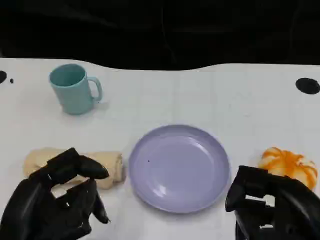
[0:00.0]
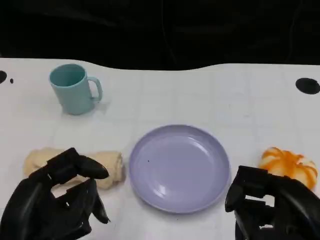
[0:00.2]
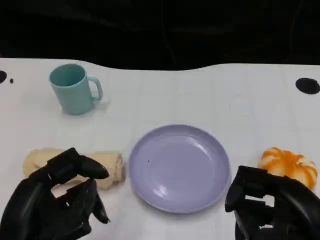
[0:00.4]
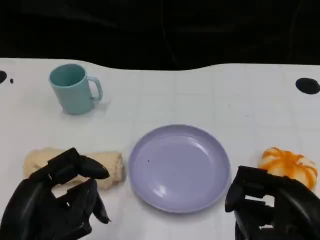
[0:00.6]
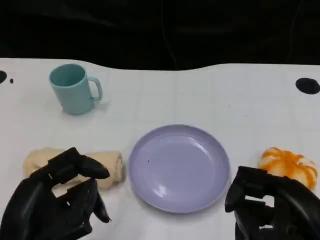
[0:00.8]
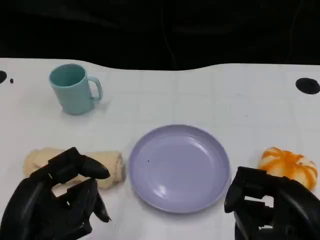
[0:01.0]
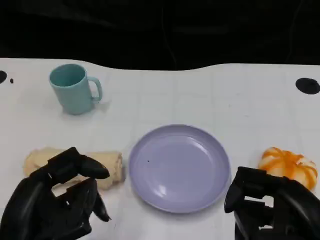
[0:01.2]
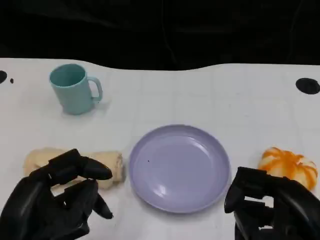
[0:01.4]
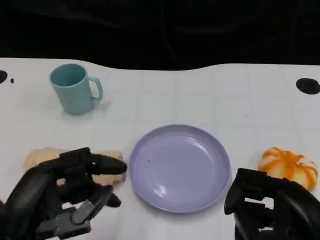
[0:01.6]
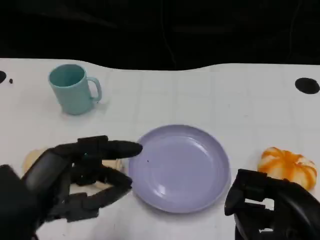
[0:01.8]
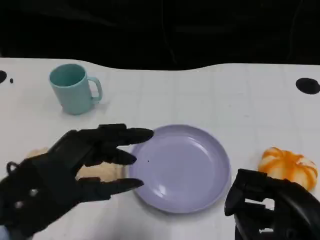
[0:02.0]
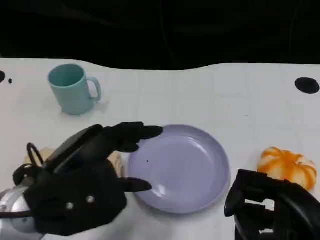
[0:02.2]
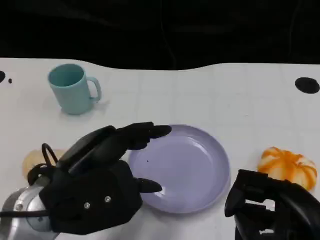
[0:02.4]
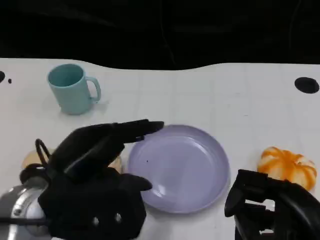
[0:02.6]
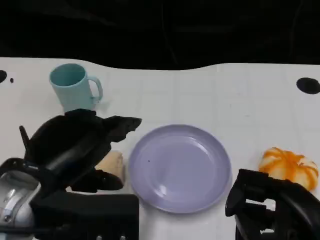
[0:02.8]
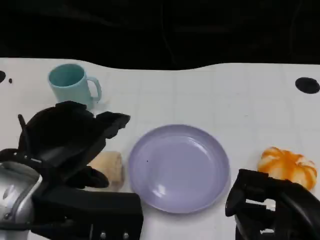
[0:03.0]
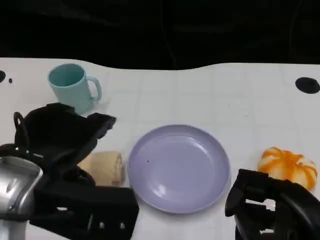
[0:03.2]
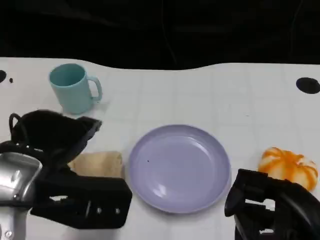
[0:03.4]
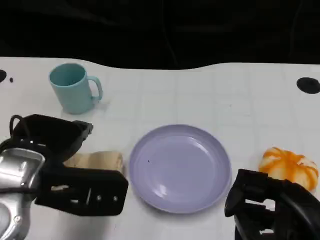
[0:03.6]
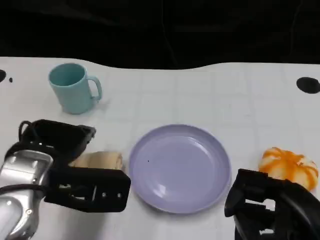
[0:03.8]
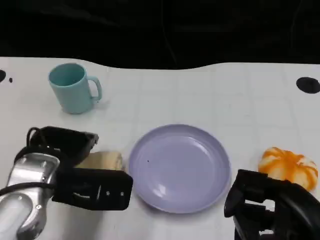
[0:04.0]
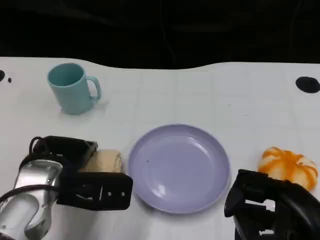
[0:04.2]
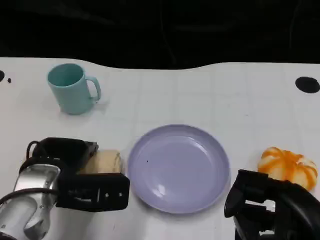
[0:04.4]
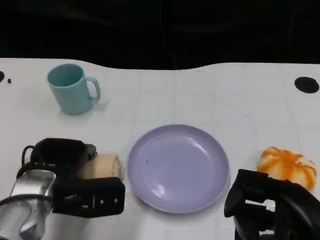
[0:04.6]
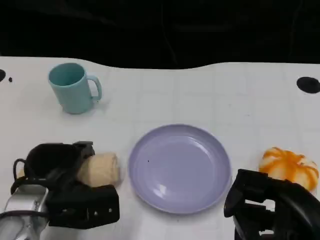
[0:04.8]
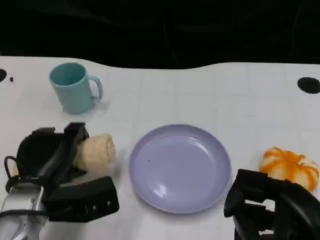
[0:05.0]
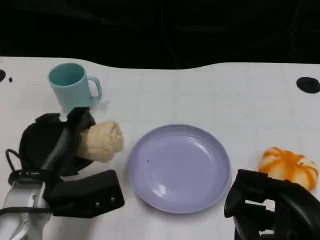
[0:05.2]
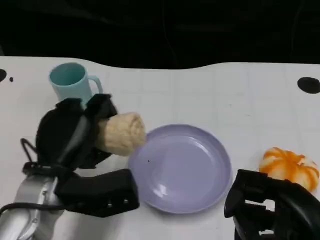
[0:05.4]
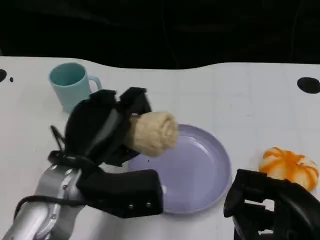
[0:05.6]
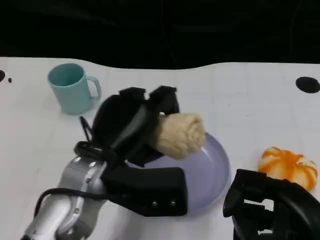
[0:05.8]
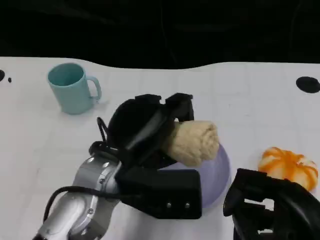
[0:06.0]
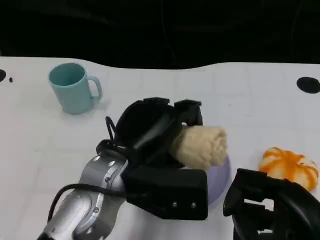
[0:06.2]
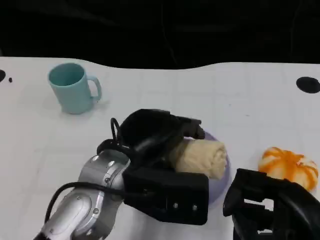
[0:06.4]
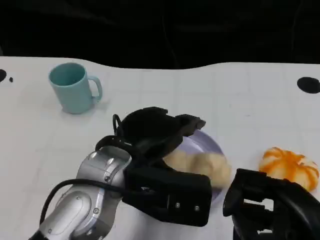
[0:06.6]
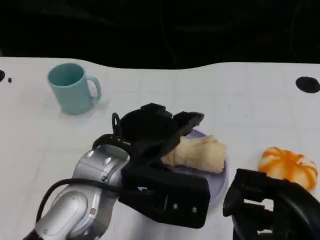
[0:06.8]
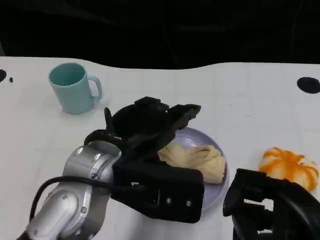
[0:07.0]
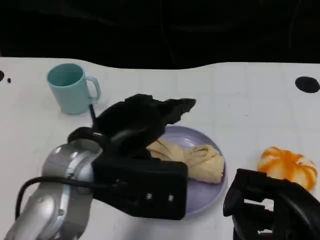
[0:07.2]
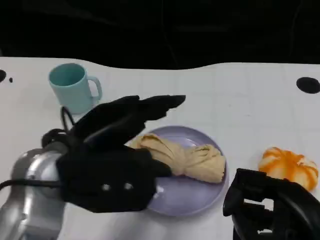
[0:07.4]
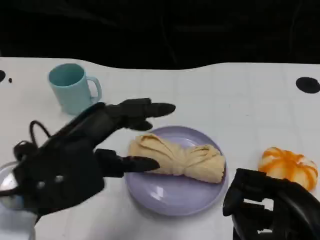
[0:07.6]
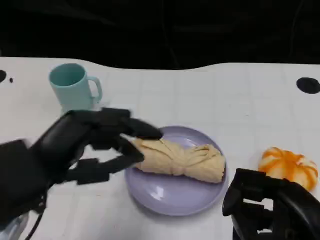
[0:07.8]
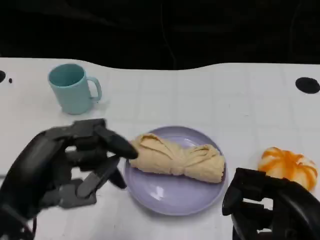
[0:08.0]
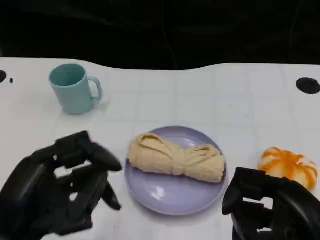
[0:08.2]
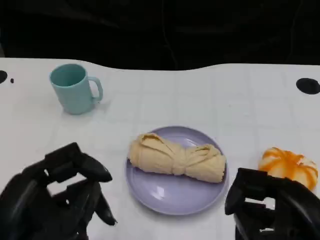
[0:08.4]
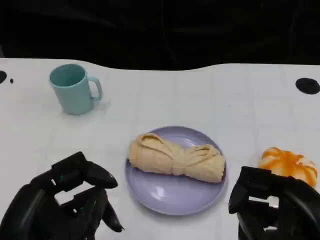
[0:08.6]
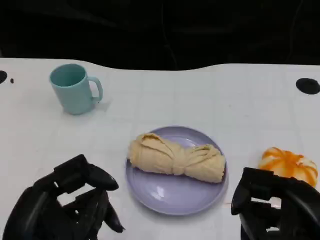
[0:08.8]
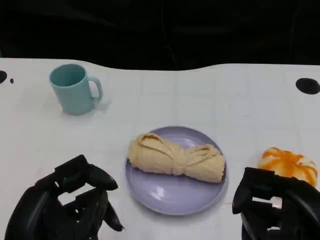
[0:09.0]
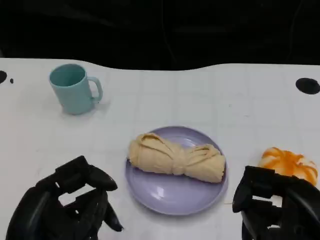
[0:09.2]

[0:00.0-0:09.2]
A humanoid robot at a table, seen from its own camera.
Task of the whole recording: Grasp the towel on the left side of the plate with the left hand and place it into the plate.
0:00.0 to 0:01.6: The hands make only small movements.
0:01.6 to 0:03.0: The left hand travels upward by about 5 cm.
0:03.0 to 0:04.6: The left hand shifts about 15 cm downward and forward.
0:04.6 to 0:06.2: The left hand shifts some 15 cm to the right and upward.
0:06.2 to 0:07.6: The left hand is displaced to the left by roughly 10 cm.
0:07.6 to 0:09.2: The left hand goes some 10 cm backward and downward.

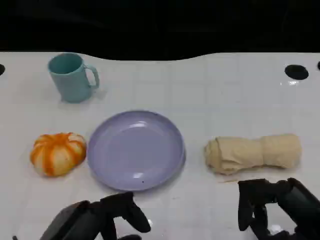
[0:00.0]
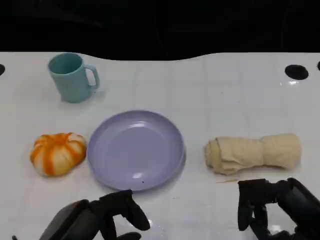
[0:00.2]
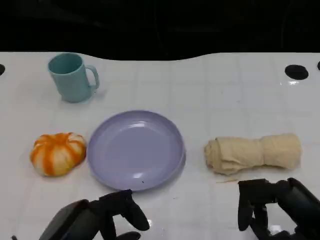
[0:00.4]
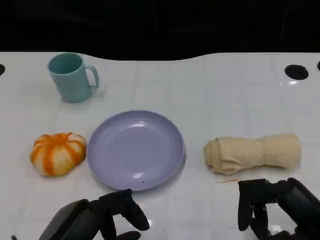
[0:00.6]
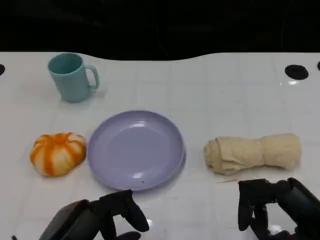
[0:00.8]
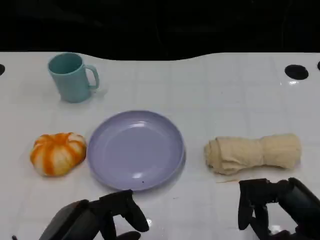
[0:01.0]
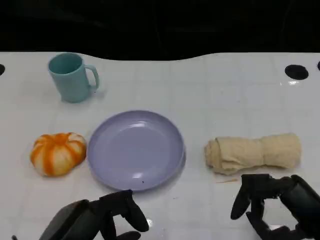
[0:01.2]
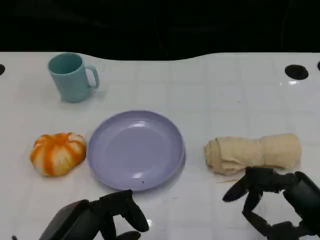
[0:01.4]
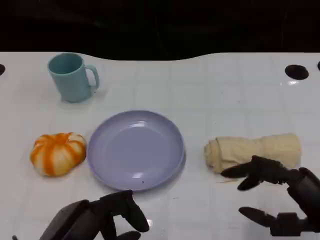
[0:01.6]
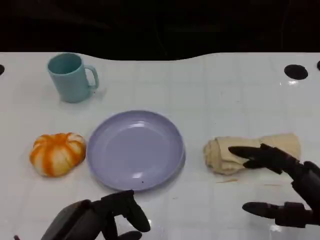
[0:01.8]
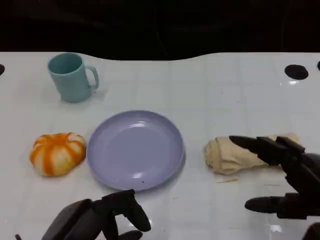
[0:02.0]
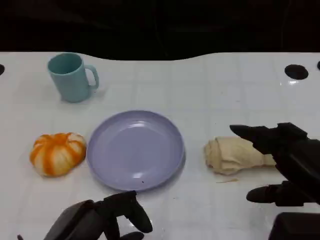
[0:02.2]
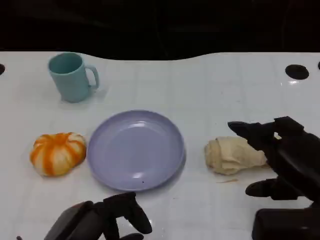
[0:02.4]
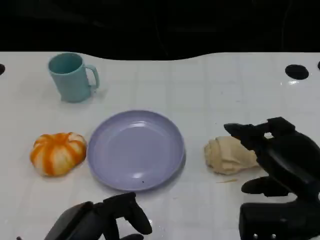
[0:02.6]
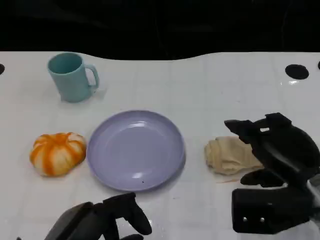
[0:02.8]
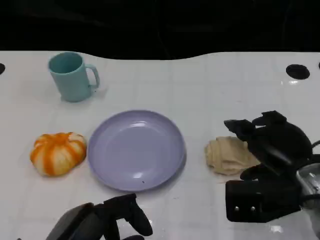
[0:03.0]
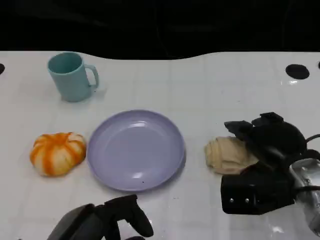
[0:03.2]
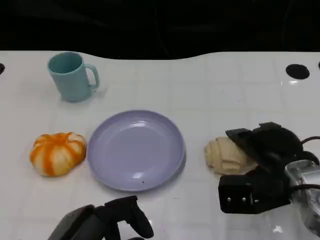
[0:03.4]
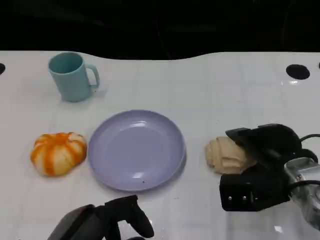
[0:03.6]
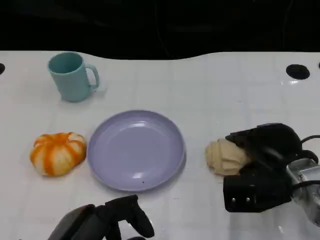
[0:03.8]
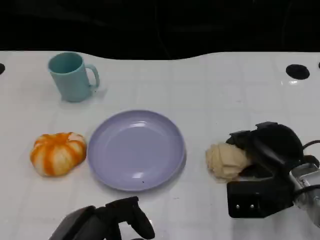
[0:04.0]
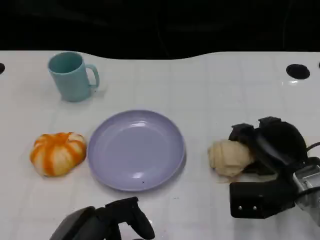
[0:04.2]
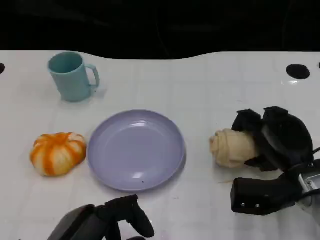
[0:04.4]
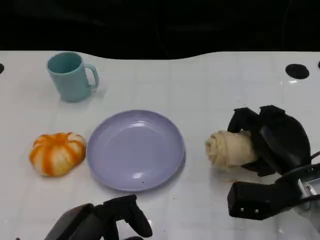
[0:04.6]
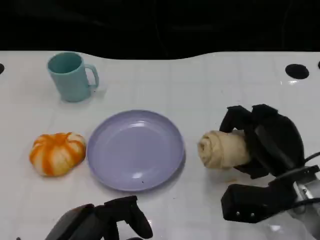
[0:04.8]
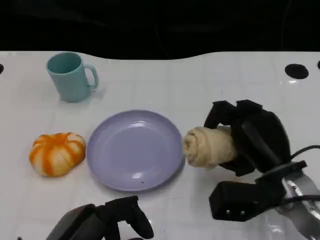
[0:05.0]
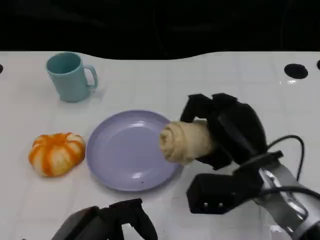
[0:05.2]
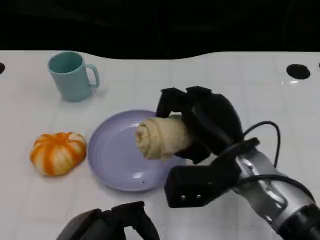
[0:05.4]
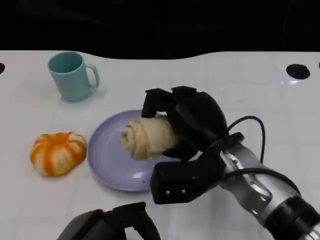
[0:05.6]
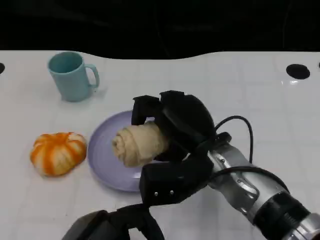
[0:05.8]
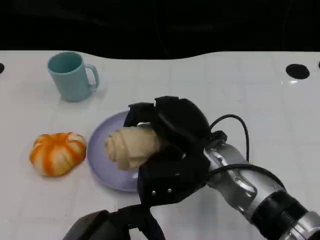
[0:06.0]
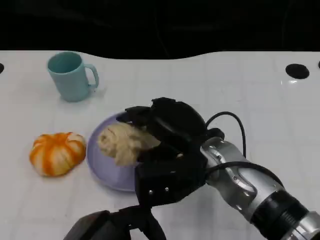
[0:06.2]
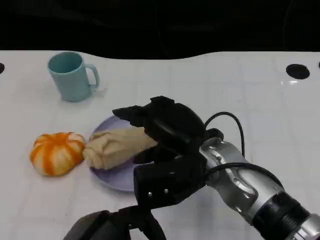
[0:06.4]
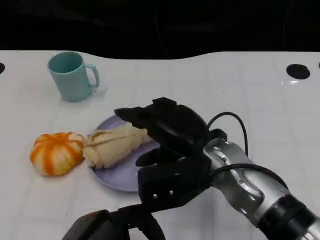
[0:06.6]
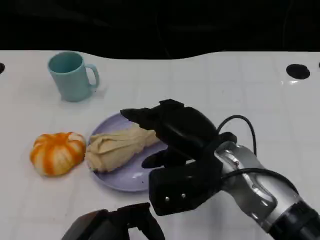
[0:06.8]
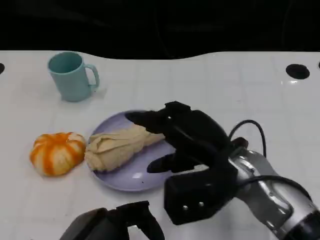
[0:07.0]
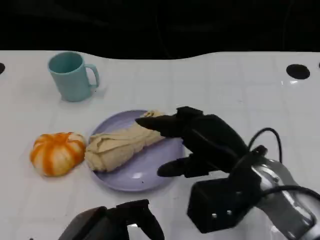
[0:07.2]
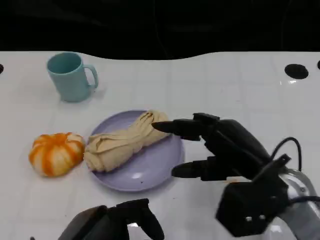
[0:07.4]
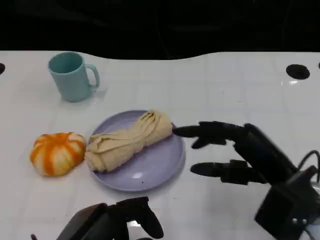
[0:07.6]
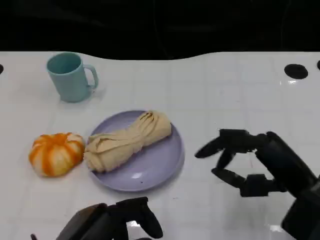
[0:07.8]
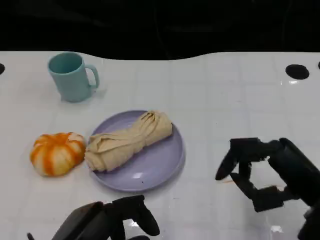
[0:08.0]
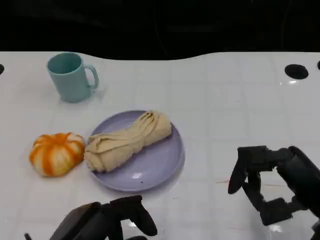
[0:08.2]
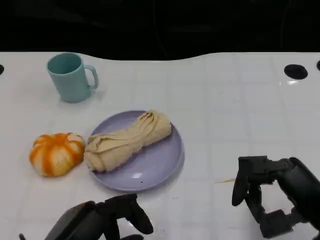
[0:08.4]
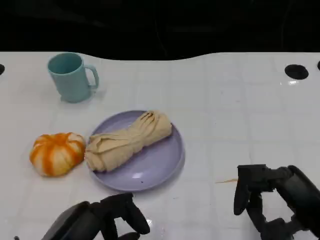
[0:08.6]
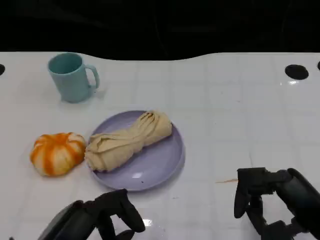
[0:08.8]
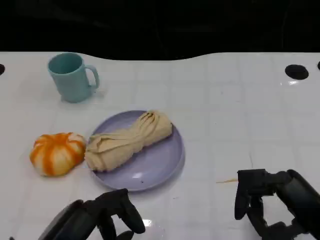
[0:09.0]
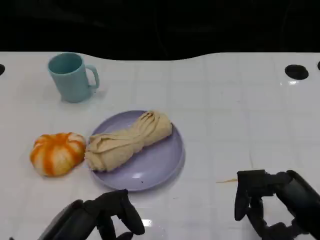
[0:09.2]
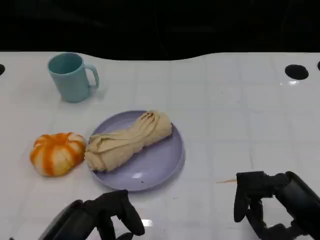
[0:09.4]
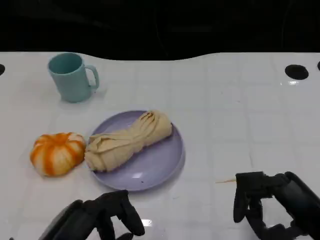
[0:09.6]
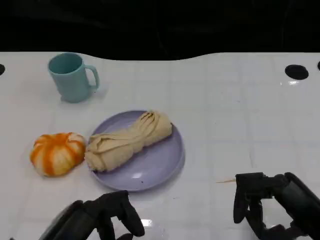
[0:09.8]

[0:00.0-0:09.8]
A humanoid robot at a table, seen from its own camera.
Task of the whole recording: Grasp the towel on the left side of the plate with the left hand and place it into the plate.
0:00.0 to 0:01.4: The two hands keep their place.
0:01.4 to 0:02.8: The right hand shifts some 5 cm forward.
0:02.8 to 0:04.2: The right hand moves downward, about 5 cm.
0:04.2 to 0:05.6: The right hand shifts about 15 cm to the left and upward.
0:05.6 to 0:07.0: The hands move only a little.
0:07.0 to 0:08.4: The right hand heads to the right and backward, covering about 15 cm.
0:08.4 to 0:09.8: There are only small adjustments of the hands.

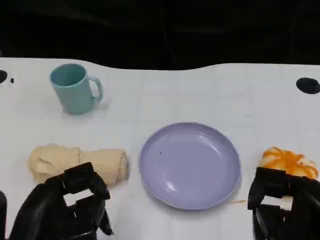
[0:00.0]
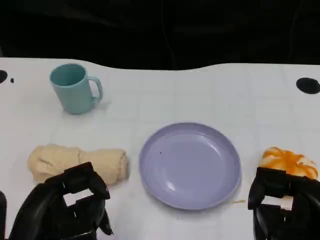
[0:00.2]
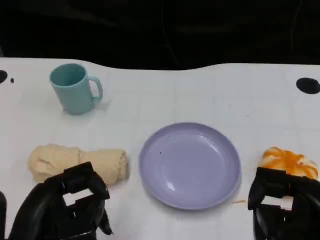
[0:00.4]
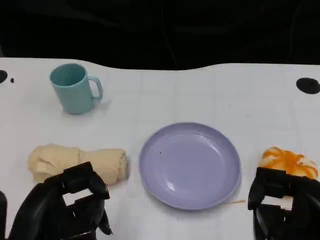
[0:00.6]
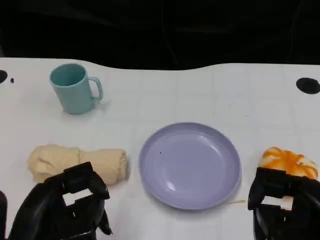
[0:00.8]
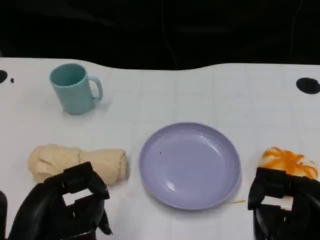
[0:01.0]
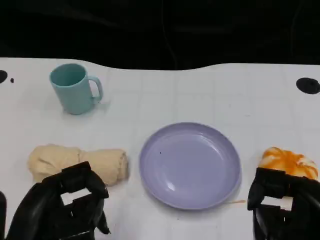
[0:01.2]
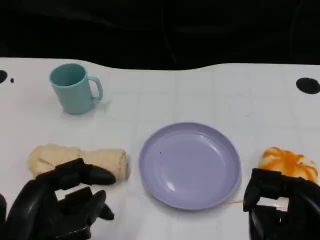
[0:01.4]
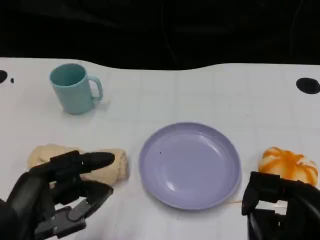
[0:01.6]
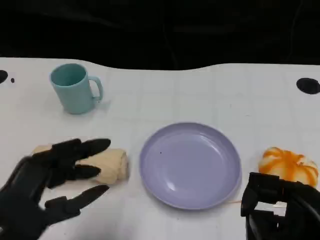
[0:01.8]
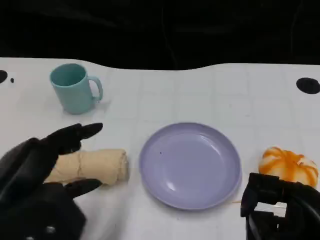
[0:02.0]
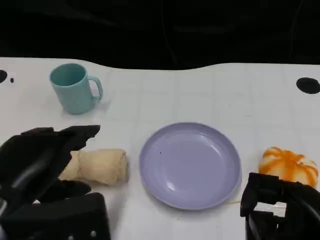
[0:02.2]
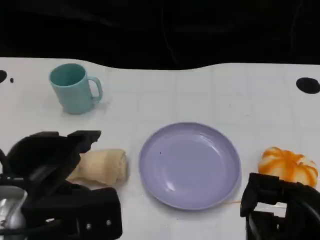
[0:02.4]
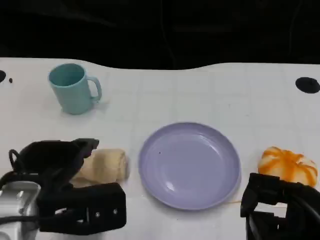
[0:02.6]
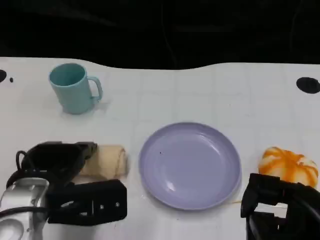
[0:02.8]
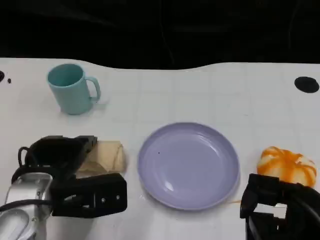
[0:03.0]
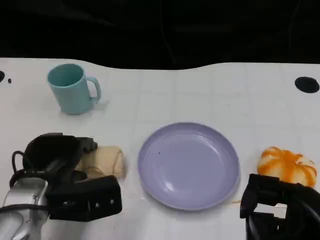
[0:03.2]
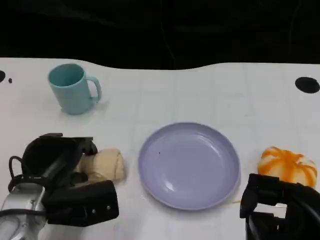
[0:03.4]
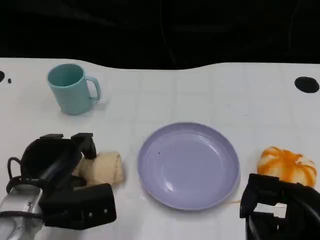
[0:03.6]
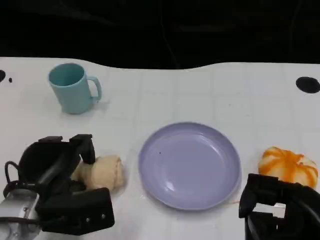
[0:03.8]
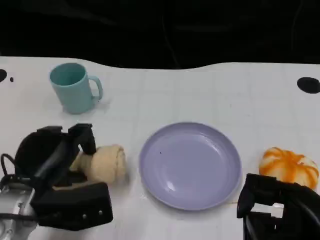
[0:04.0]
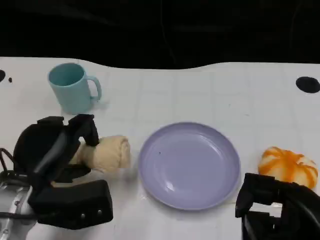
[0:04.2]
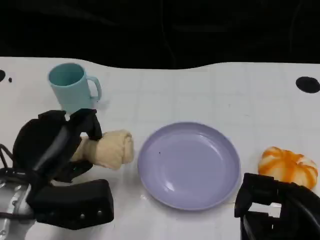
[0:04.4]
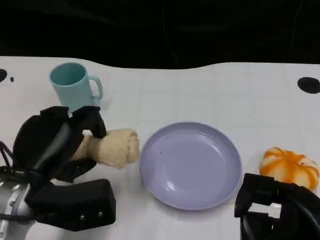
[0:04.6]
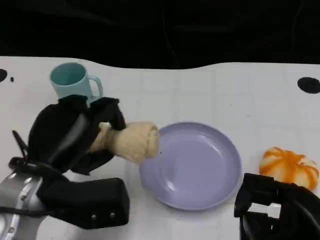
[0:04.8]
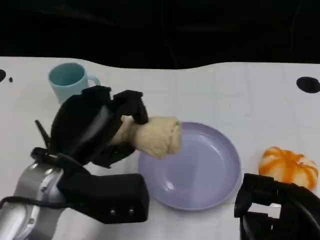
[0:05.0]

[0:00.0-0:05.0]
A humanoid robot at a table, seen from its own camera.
Task of the whole recording: Grasp the towel on the left side of the plate with the left hand and place it into the plate.
0:01.6 to 0:03.4: The left hand heads forward and downward, covering roughly 15 cm.
0:03.4 to 0:05.0: The left hand travels upward by approximately 10 cm.
